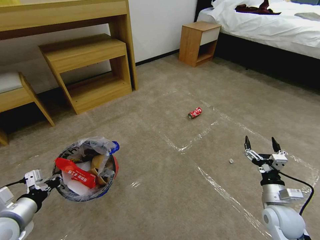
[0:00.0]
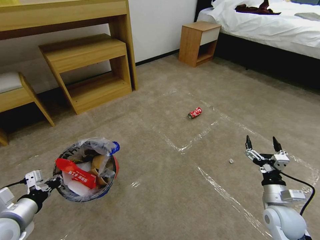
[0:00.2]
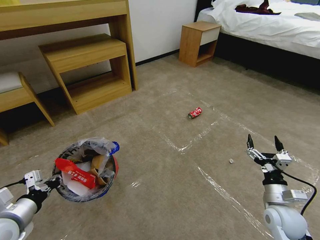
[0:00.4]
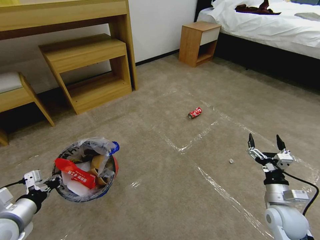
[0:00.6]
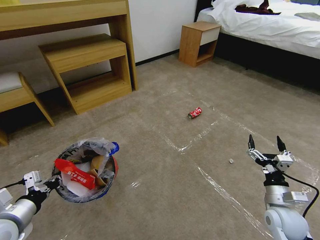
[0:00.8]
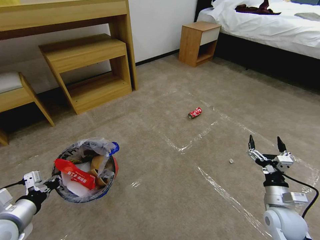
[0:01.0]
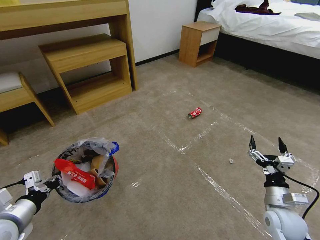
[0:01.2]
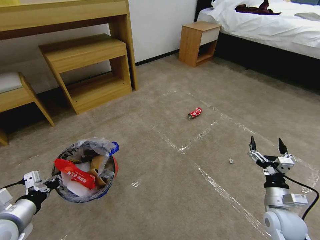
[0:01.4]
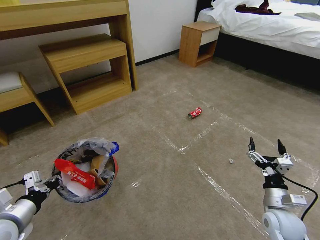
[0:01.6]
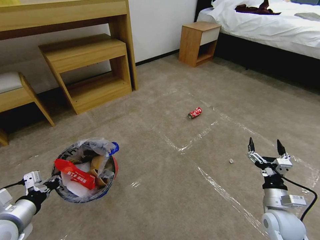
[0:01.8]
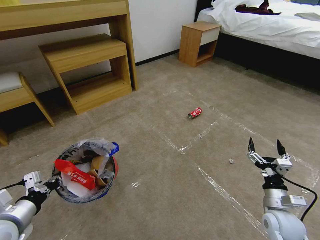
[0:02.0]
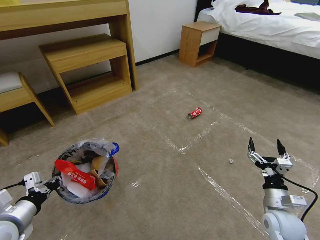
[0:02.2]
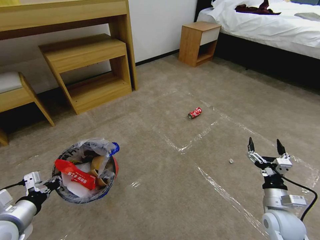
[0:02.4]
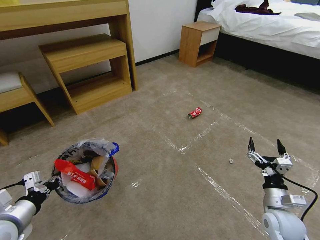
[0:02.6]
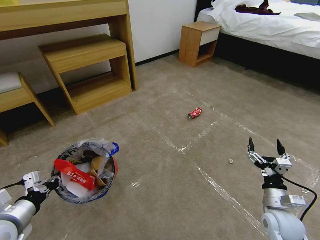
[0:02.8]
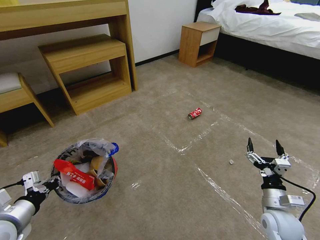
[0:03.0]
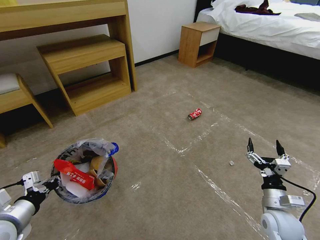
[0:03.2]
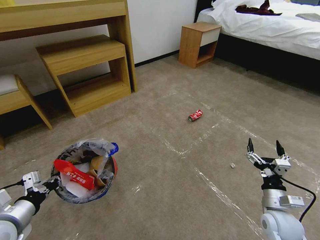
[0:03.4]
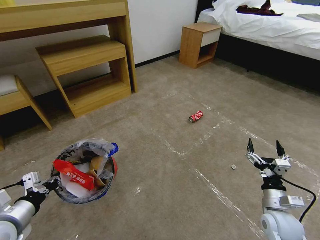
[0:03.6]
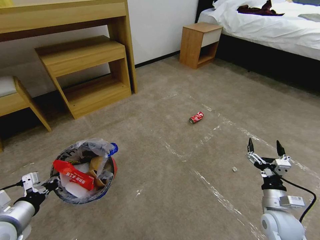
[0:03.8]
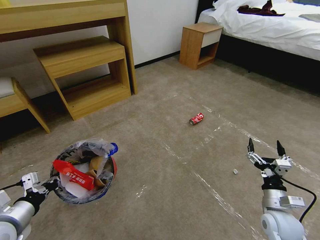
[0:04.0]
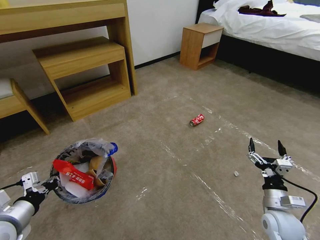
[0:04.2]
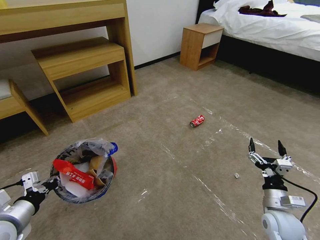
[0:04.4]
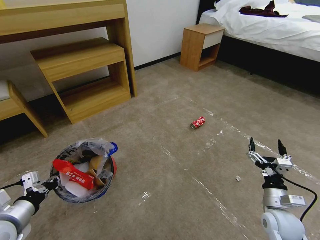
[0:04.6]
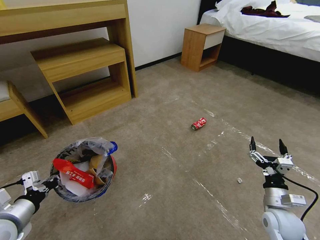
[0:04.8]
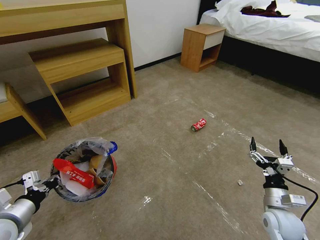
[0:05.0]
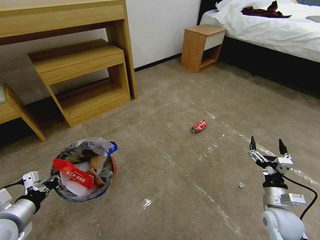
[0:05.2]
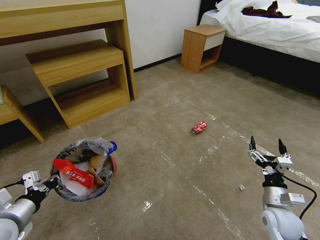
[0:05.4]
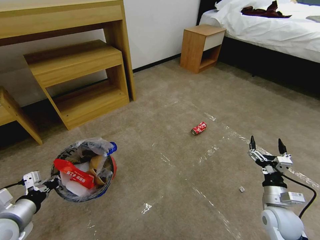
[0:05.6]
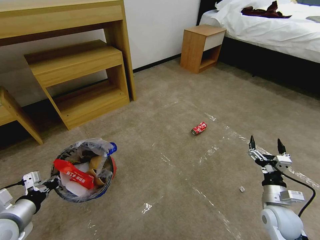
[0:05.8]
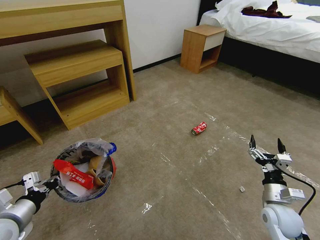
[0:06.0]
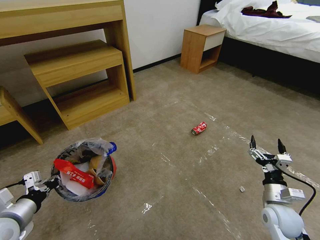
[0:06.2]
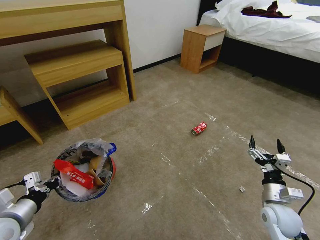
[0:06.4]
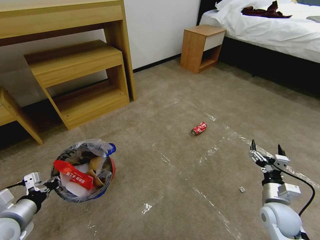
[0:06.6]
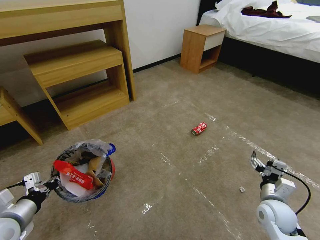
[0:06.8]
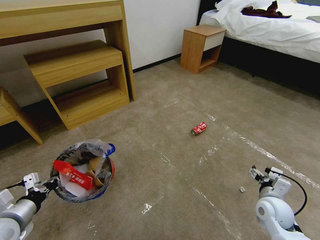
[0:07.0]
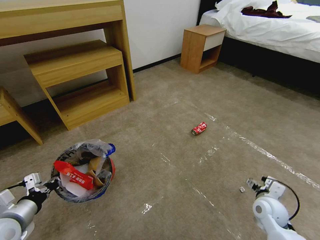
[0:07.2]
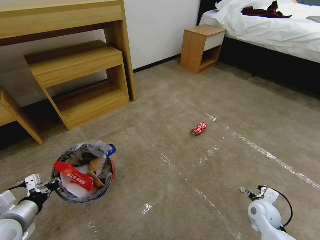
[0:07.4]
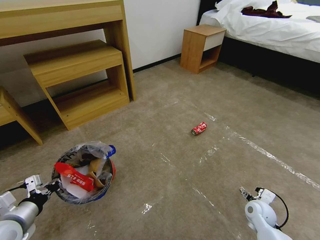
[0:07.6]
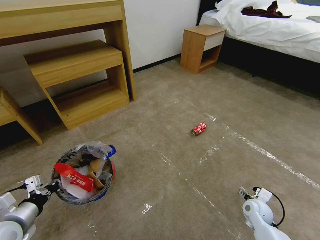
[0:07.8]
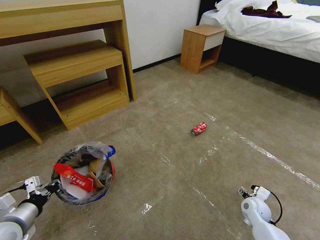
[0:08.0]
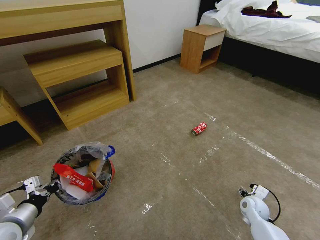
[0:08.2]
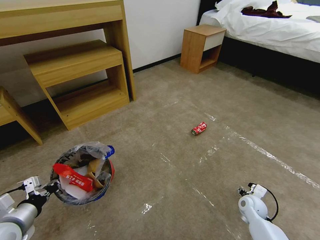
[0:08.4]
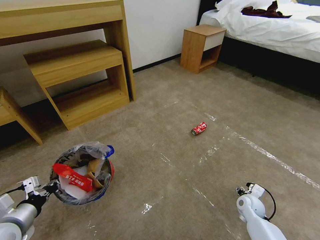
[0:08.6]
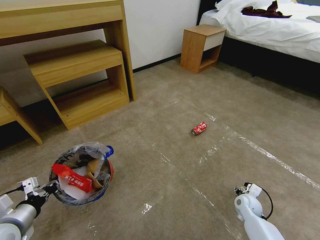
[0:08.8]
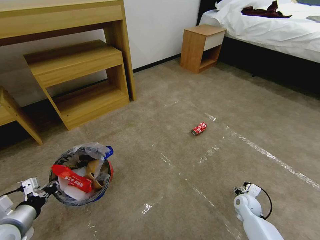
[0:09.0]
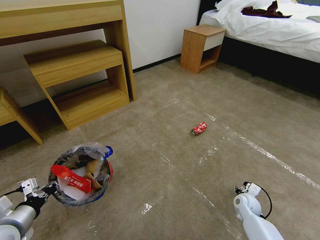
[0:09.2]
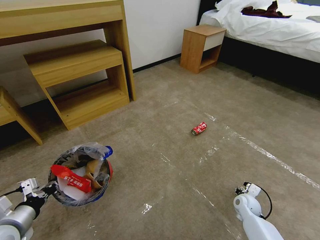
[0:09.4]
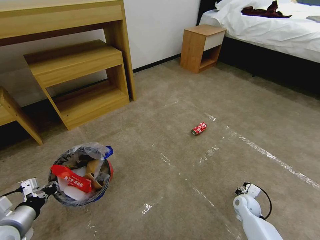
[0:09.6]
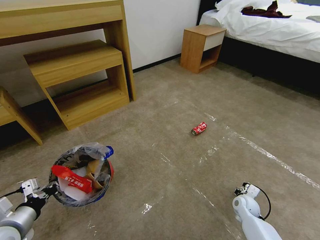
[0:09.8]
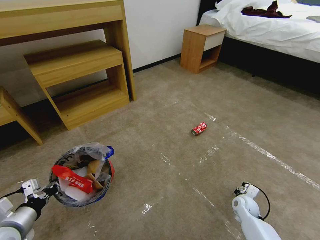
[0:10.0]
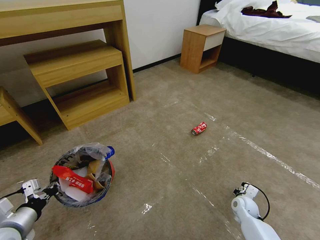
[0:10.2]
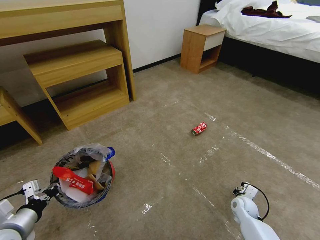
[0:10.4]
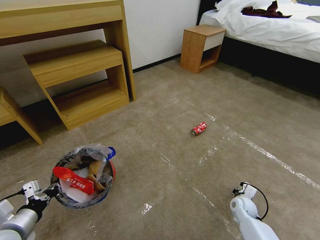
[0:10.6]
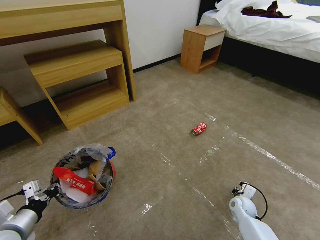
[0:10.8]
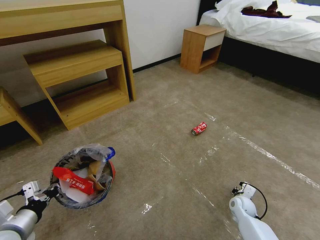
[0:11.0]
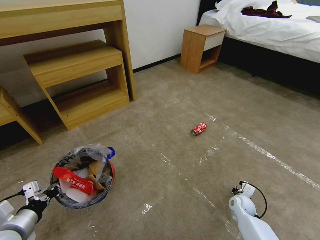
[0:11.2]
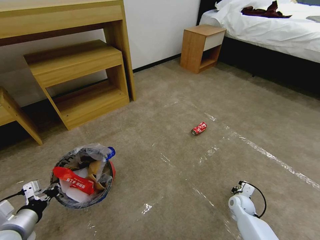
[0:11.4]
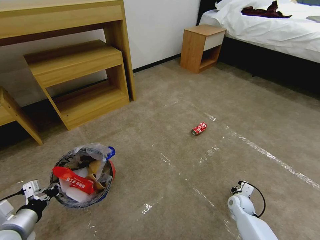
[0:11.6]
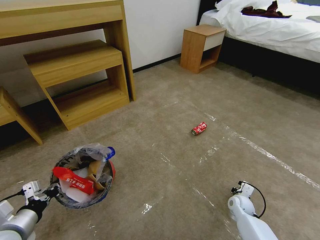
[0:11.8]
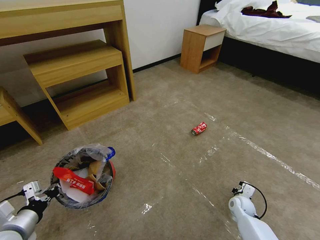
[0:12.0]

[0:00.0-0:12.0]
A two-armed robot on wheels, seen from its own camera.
Task of the whole recording: Pick up the trash bin and place the garbage on the floor into it.
0:00.0 to 0:01.6: Both grippers stay put.
0:01.6 to 0:04.4: The two grippers keep their place.
0:04.4 to 0:06.0: There are only small adjustments of the grippers.
0:06.0 to 0:07.6: The right gripper heads downward, covering about 10 cm.
0:07.6 to 0:09.0: The right gripper shifts by roughly 5 cm.
0:09.0 to 0:10.4: The grippers make only small movements.
0:10.4 to 0:12.0: The right gripper closes up.

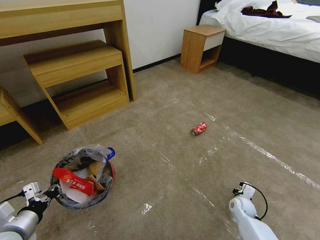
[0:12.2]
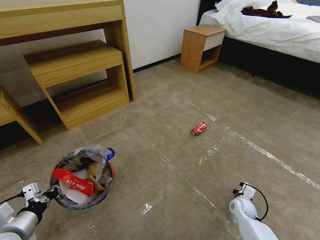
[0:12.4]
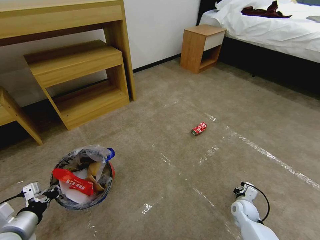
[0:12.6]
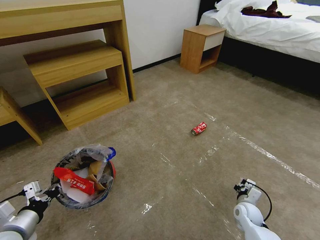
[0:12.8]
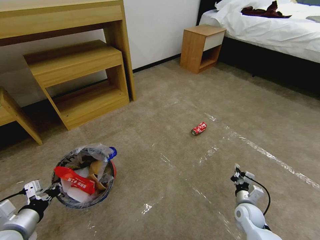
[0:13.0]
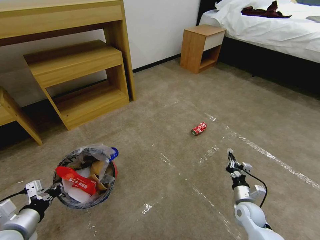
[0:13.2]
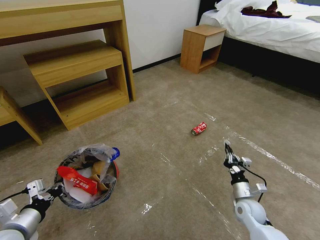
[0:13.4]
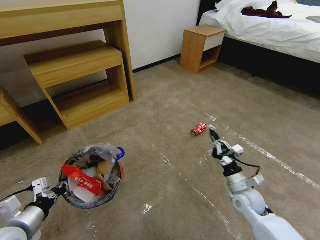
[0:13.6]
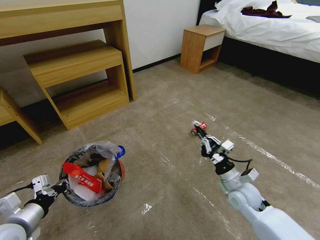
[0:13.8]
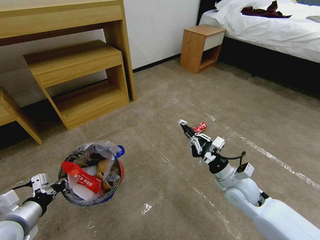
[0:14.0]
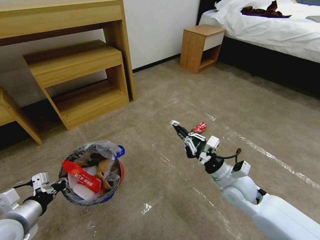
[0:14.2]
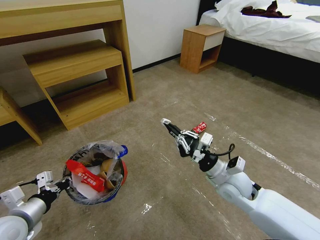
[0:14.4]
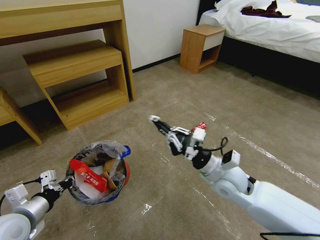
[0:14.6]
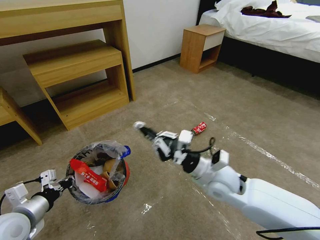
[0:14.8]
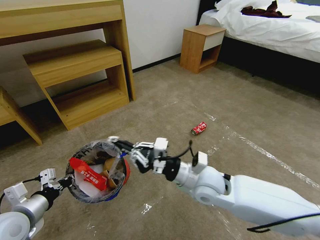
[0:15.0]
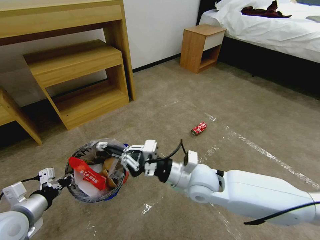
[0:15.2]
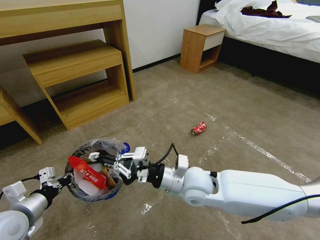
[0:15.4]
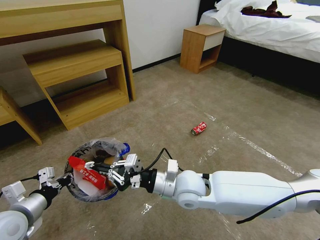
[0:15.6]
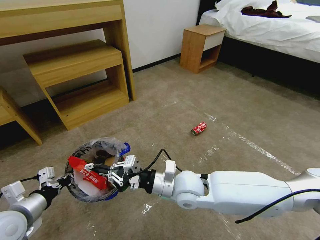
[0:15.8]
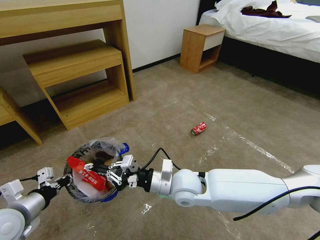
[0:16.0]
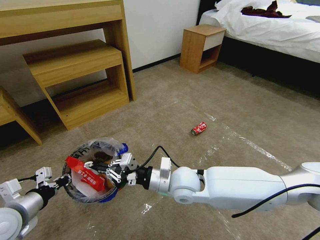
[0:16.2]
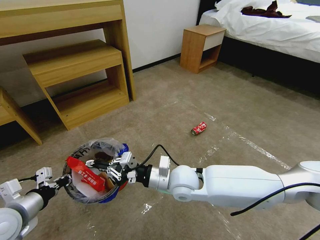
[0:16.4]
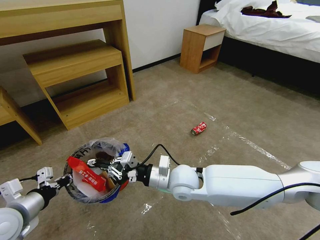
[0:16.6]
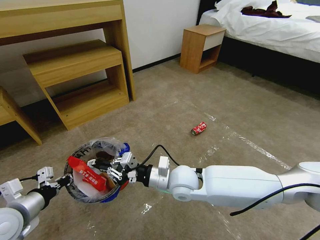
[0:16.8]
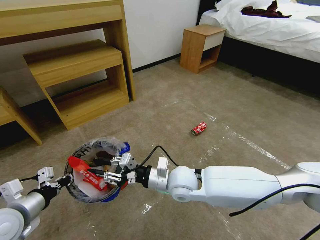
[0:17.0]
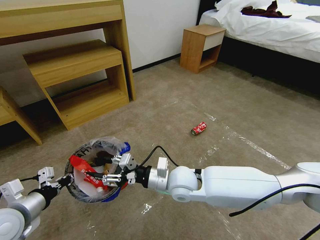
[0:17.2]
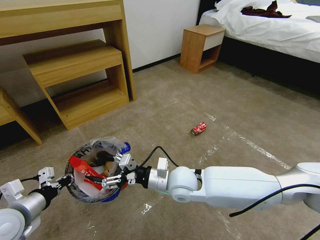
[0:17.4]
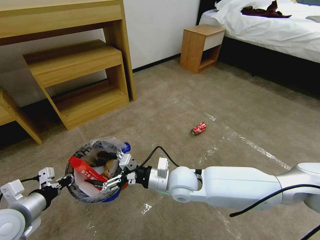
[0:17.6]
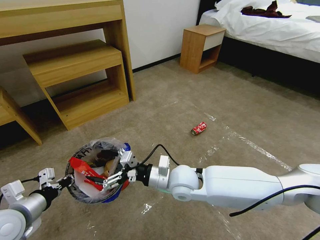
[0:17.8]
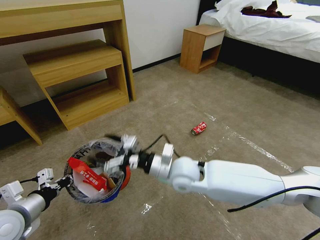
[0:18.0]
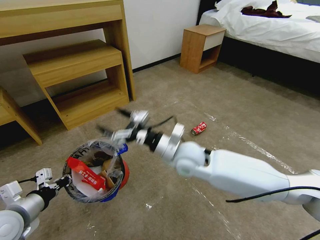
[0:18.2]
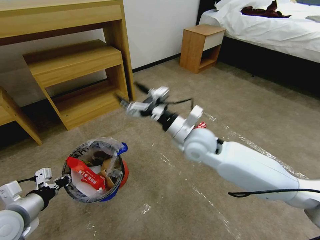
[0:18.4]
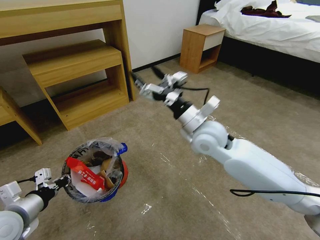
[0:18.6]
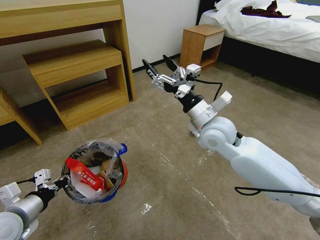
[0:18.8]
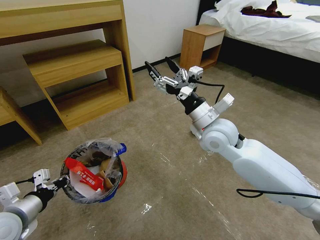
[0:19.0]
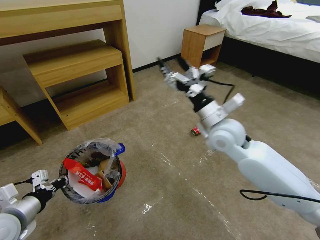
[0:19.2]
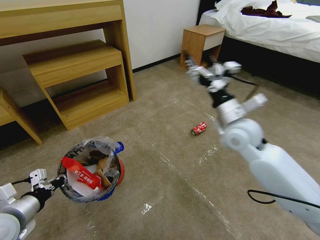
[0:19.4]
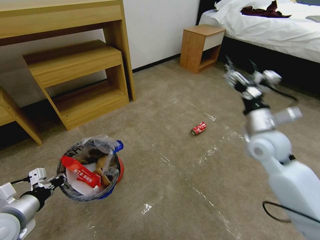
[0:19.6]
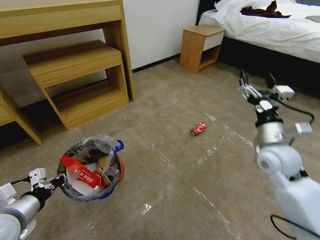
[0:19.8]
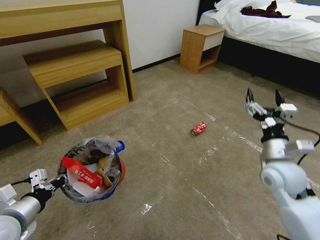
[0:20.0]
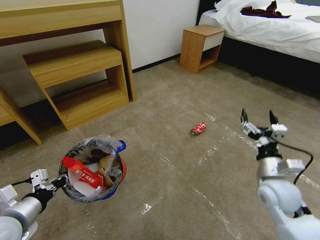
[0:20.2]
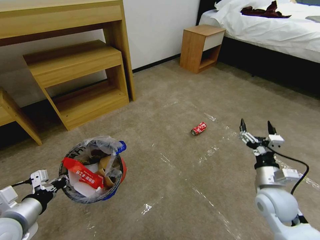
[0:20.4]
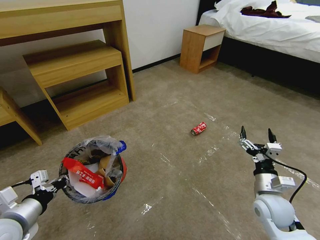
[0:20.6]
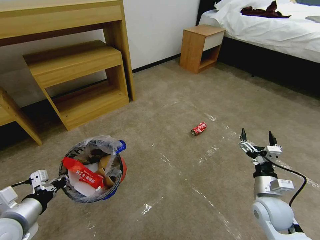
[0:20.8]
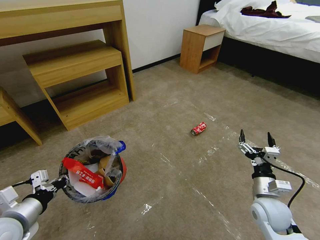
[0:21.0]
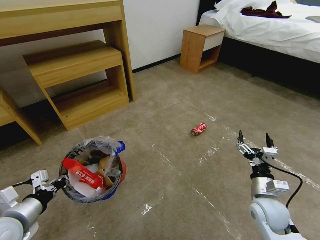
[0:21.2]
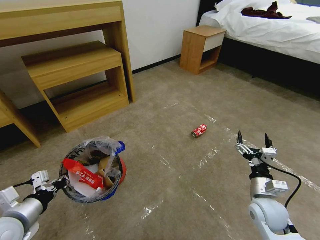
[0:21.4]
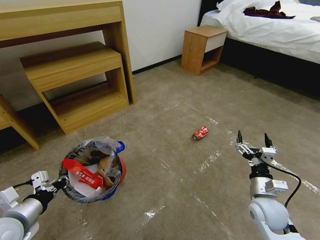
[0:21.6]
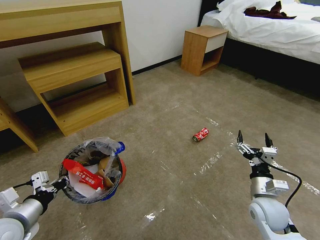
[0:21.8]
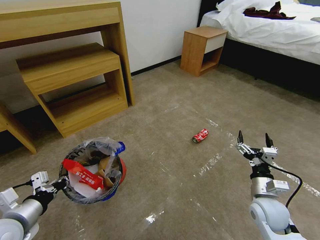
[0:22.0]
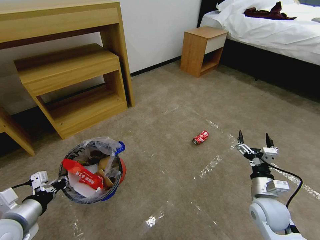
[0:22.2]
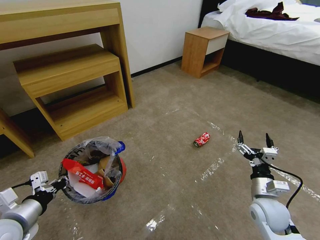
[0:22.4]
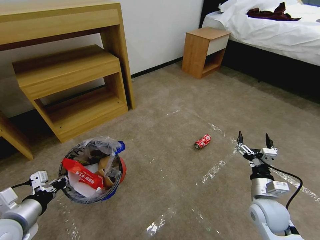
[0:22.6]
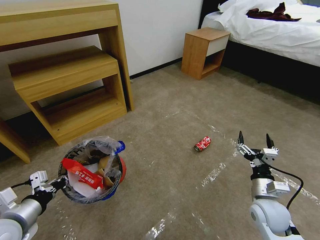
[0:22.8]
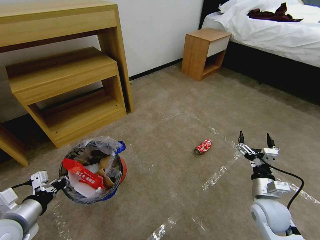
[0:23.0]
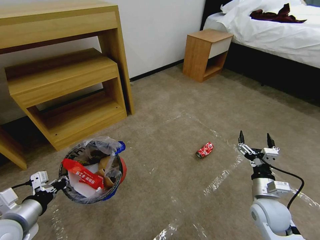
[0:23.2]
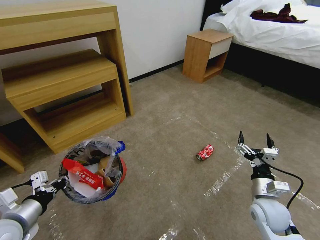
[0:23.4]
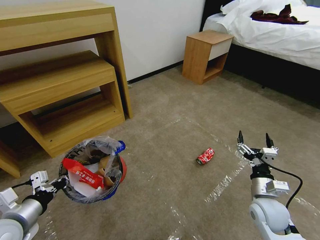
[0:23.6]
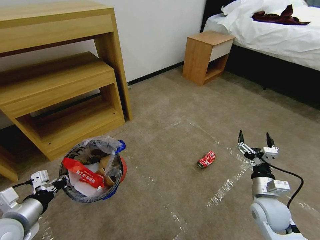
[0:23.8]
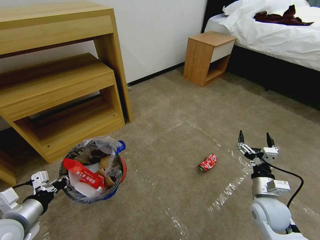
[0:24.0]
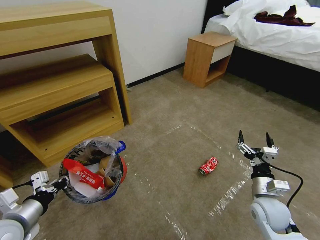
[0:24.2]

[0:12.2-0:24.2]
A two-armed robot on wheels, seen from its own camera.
Task of the whole recording: Pick up the trash bin and place the garbage on the floor into it.
0:12.2 to 0:13.8: The right gripper heads upward and to the left, covering roughly 20 cm.
0:13.8 to 0:15.2: The right gripper shifts some 20 cm to the left and upward.
0:15.2 to 0:16.6: The right gripper changes place by some 5 cm.
0:16.6 to 0:18.2: The right gripper shifts roughly 5 cm upward, and opens up.
0:18.2 to 0:19.8: The right gripper shifts roughly 25 cm to the right.
0:19.8 to 0:21.2: The right gripper heads downward and backward, covering roughly 15 cm.
